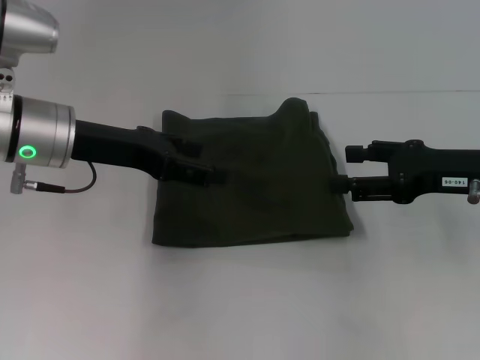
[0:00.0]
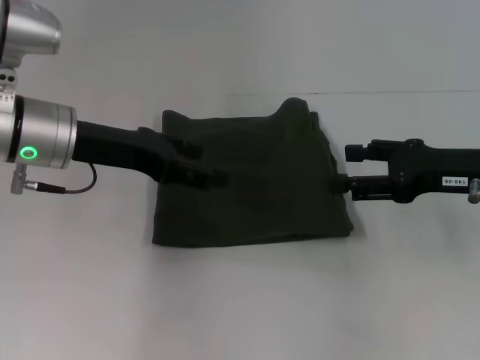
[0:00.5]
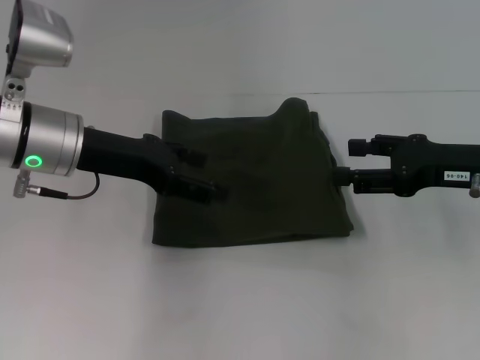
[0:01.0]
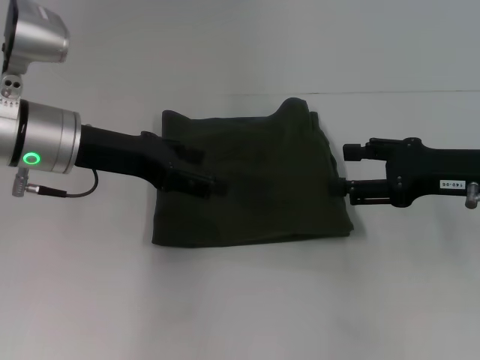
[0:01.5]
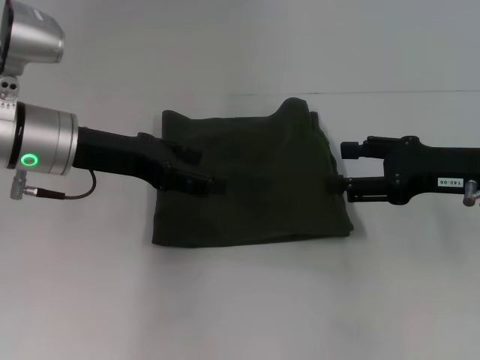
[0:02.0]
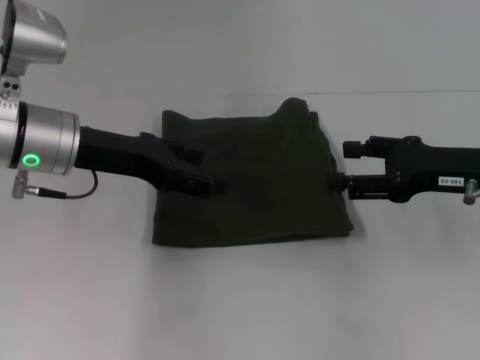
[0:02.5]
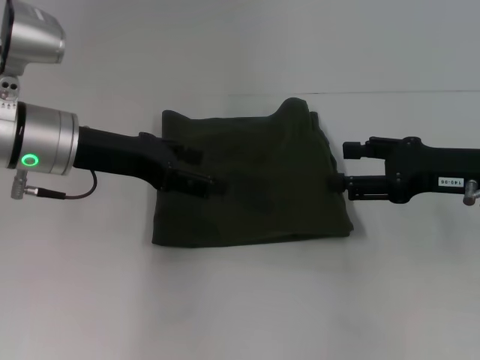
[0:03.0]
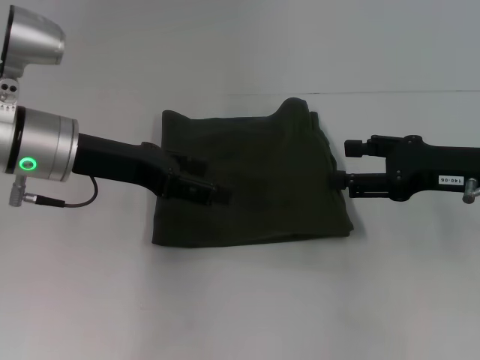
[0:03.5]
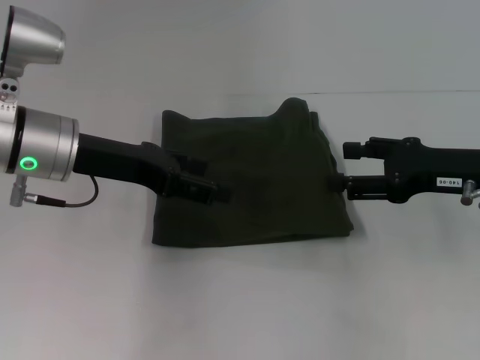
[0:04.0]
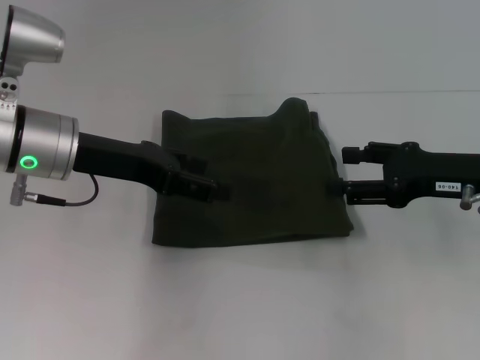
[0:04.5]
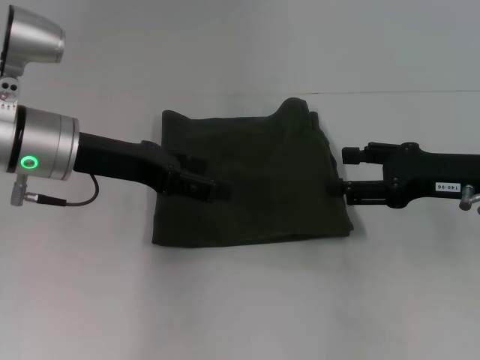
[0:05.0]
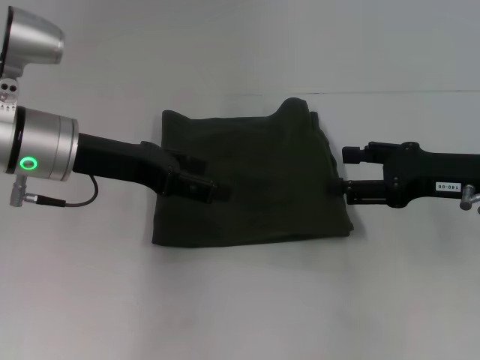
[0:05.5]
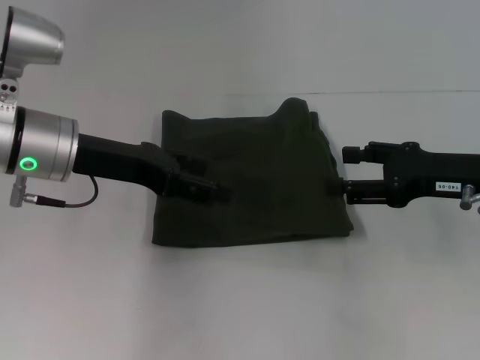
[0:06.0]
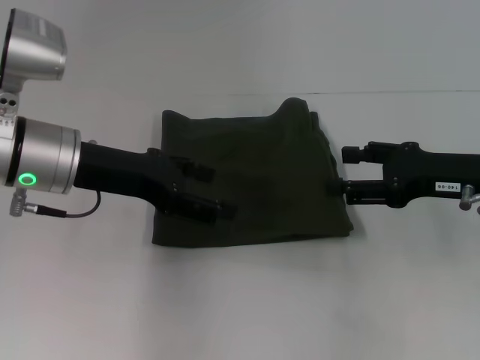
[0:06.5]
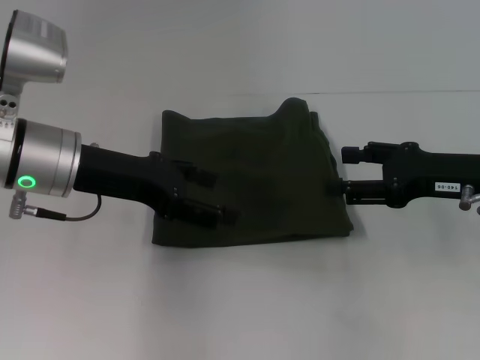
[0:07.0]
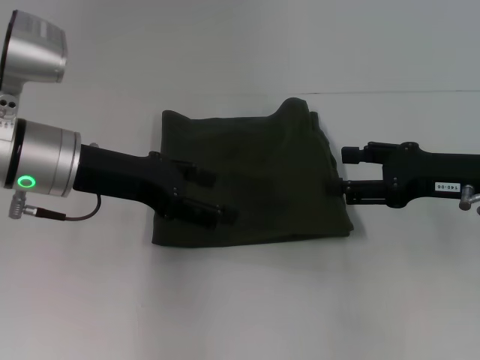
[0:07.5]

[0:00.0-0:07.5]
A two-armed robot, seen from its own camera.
0:00.0 to 0:02.0: The grippers move only a little.
0:02.0 to 0:05.5: The two grippers keep their place.
0:05.5 to 0:07.5: The grippers make only small movements.

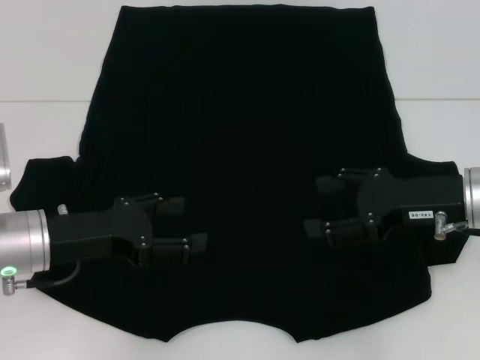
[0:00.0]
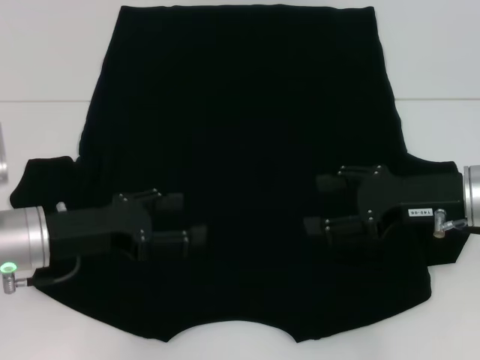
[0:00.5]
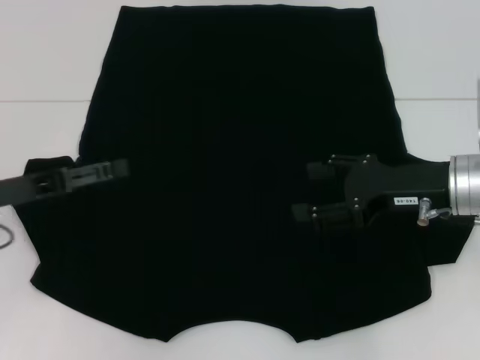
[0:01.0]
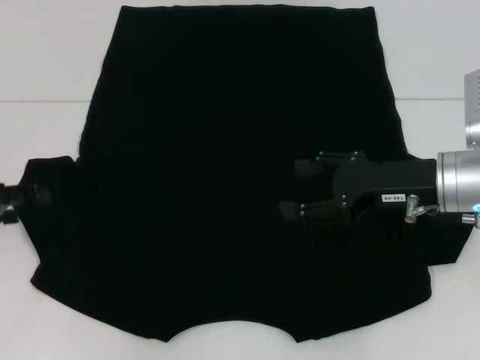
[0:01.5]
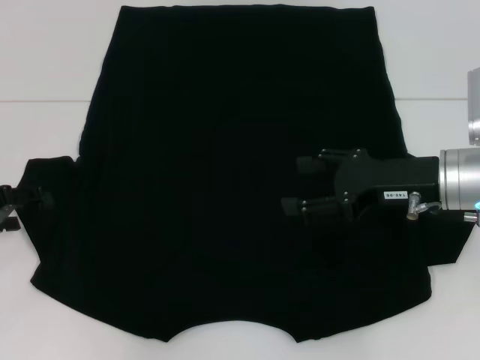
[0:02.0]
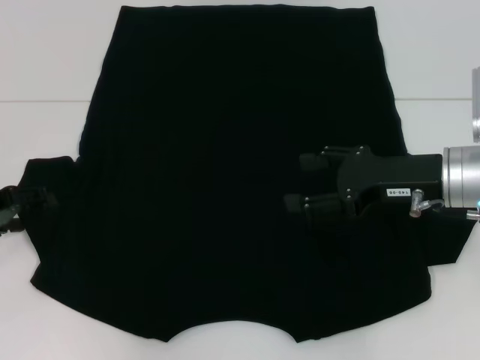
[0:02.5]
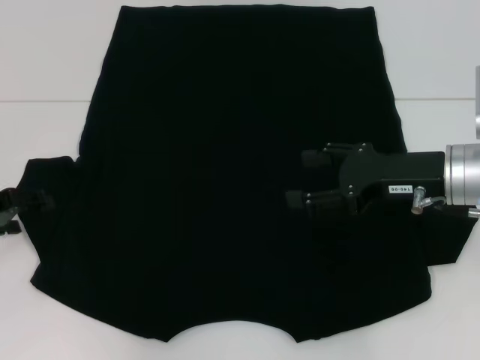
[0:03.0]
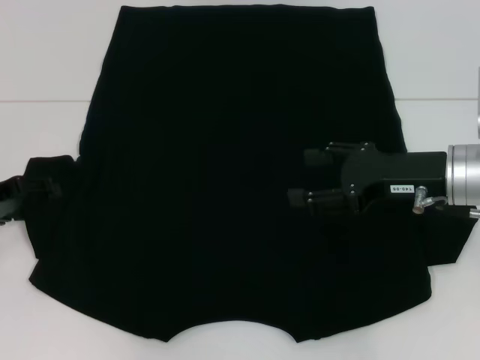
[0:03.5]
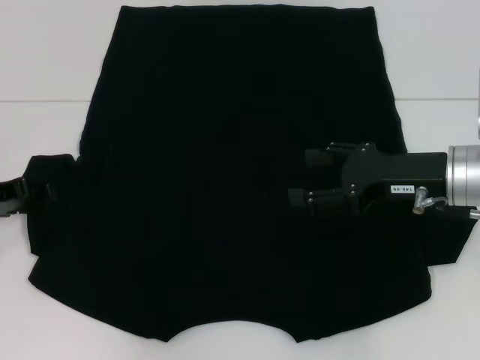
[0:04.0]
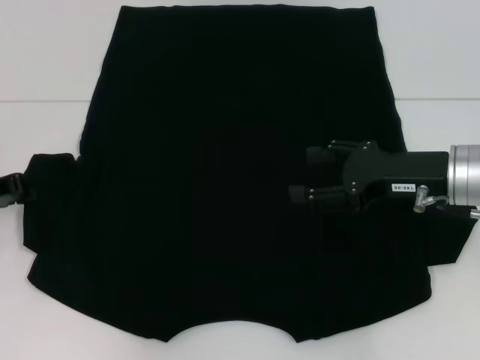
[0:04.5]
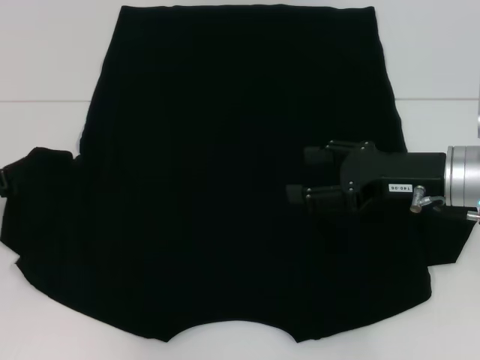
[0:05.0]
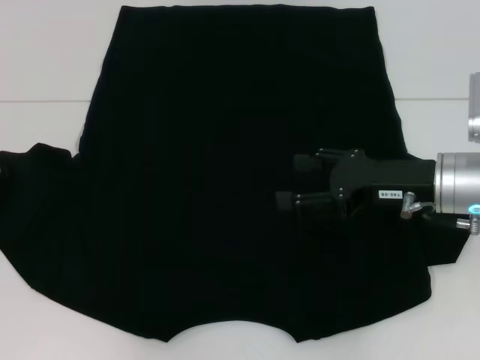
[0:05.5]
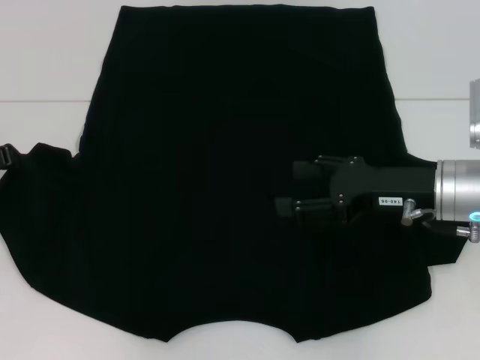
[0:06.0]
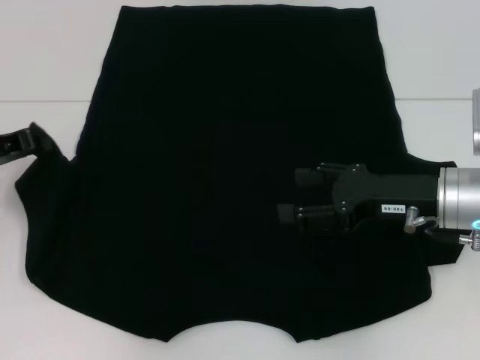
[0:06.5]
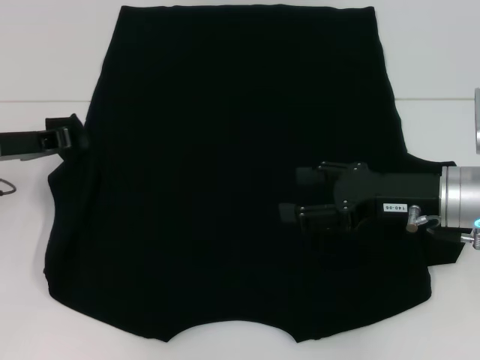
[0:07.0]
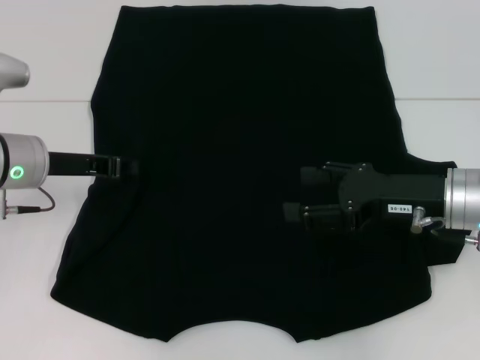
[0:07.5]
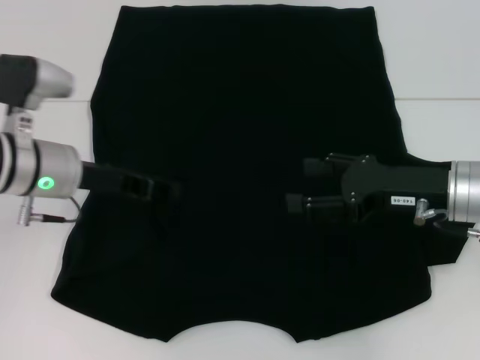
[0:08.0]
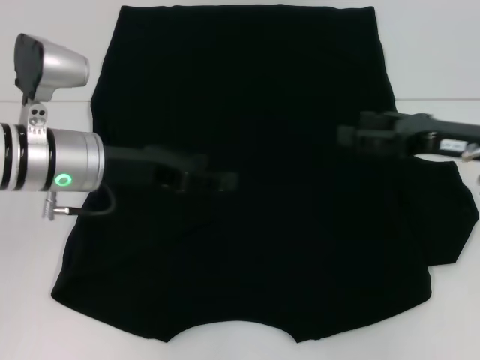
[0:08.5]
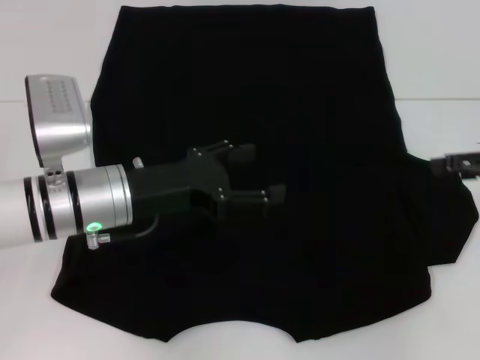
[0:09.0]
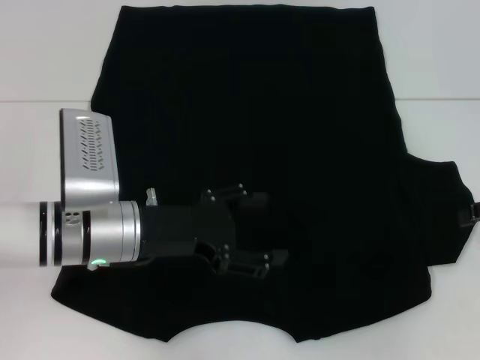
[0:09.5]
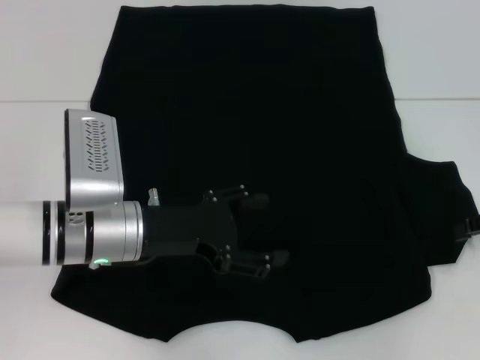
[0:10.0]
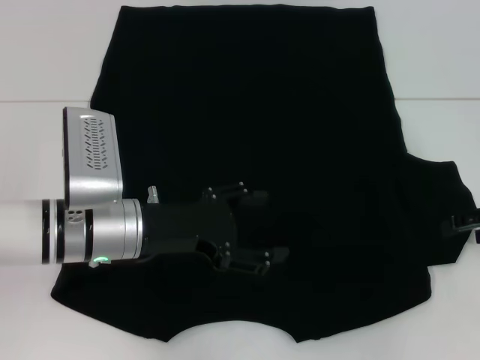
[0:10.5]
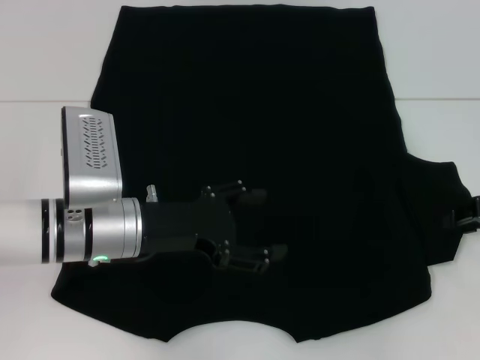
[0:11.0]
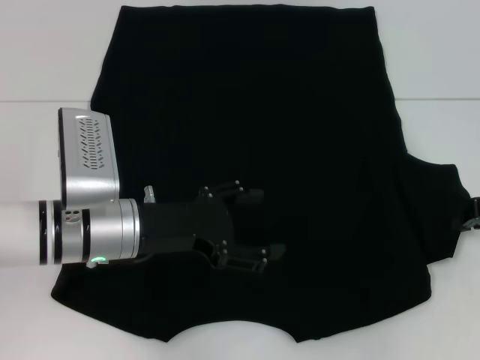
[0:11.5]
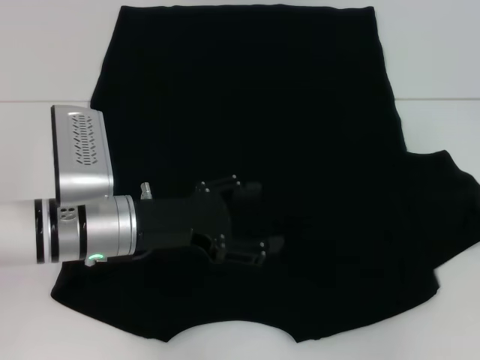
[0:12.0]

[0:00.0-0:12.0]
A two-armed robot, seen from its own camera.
Step, 0:00.0 to 0:08.0: Fold the bottom left sleeve with your left hand.
0:00.0 to 0:02.0: The left gripper moves to the left, roughly 10 cm.
0:02.0 to 0:04.0: The grippers move only a little.
0:04.0 to 0:06.0: The left gripper closes.
0:06.0 to 0:08.0: The left gripper travels to the right by about 15 cm.
0:08.0 to 0:10.0: The left gripper moves to the right and backward, approximately 10 cm, and opens. Meanwhile the right gripper goes approximately 15 cm to the right.
0:10.0 to 0:12.0: The right gripper closes.

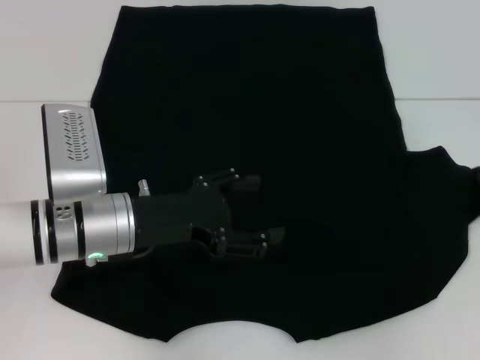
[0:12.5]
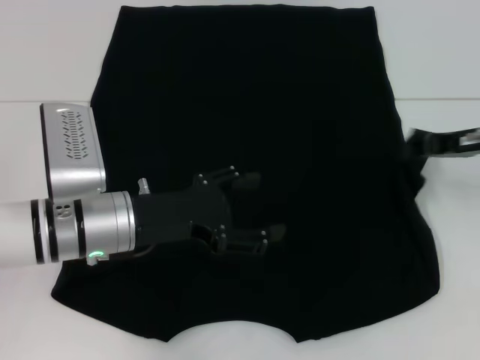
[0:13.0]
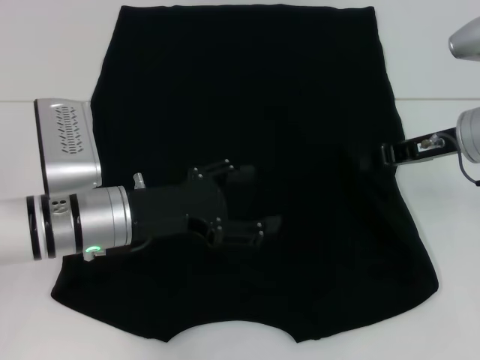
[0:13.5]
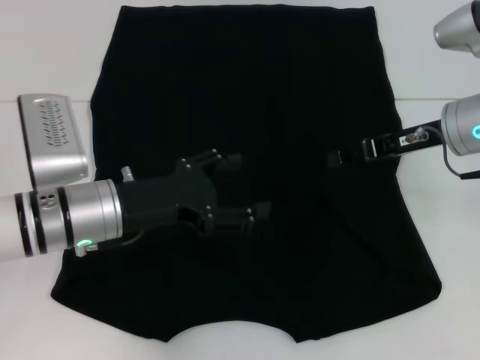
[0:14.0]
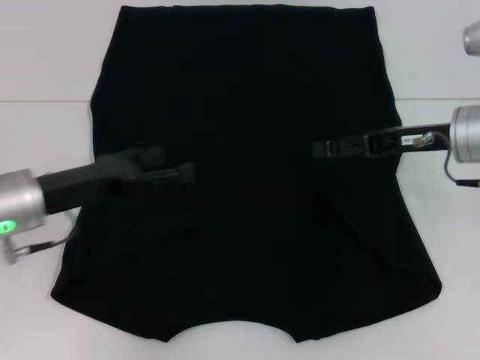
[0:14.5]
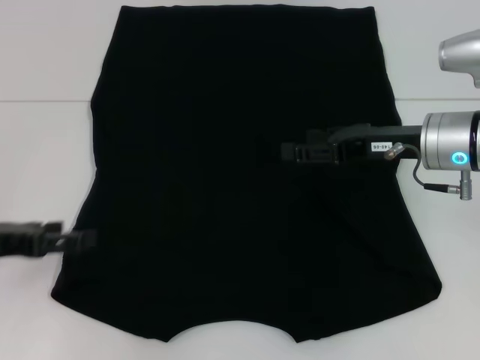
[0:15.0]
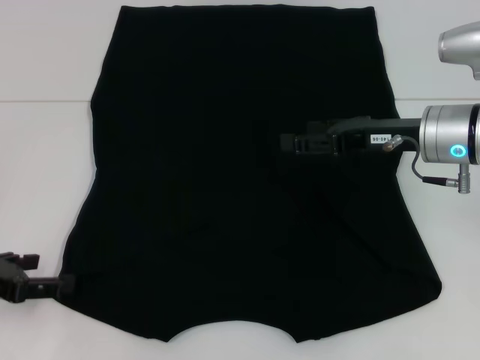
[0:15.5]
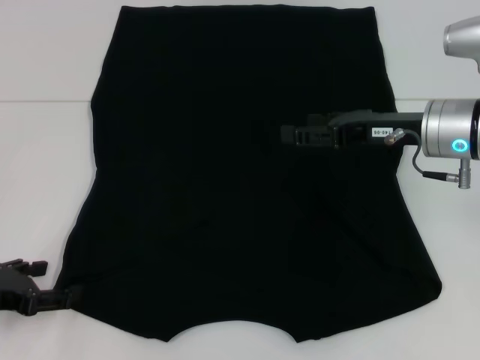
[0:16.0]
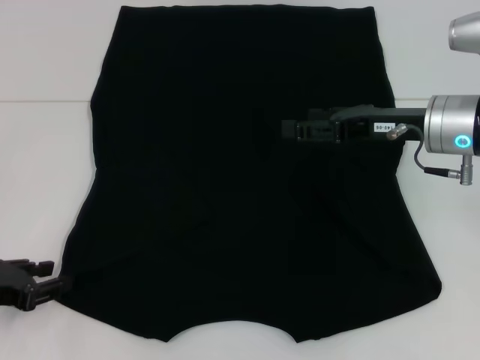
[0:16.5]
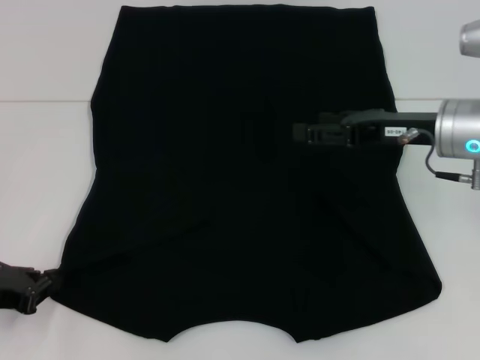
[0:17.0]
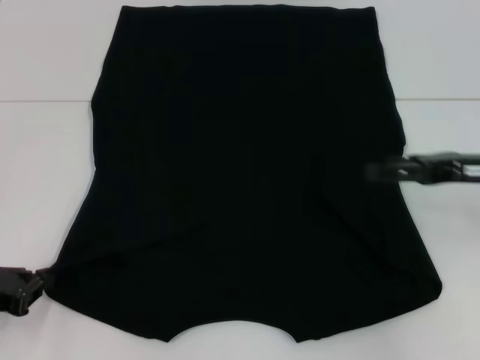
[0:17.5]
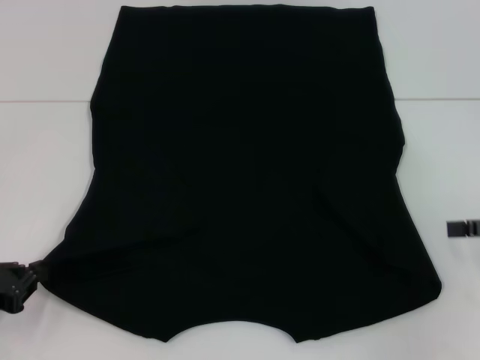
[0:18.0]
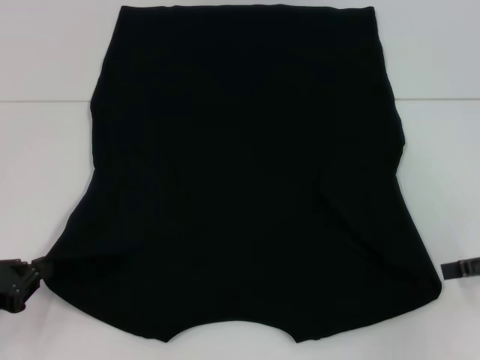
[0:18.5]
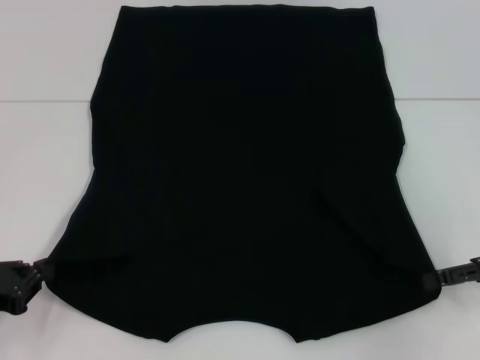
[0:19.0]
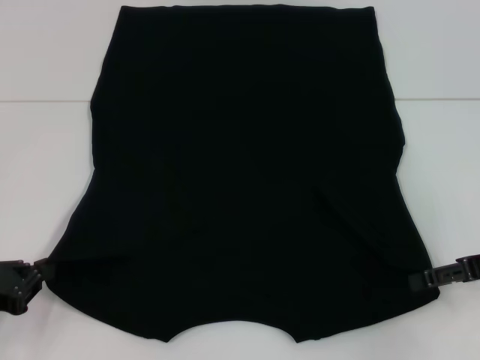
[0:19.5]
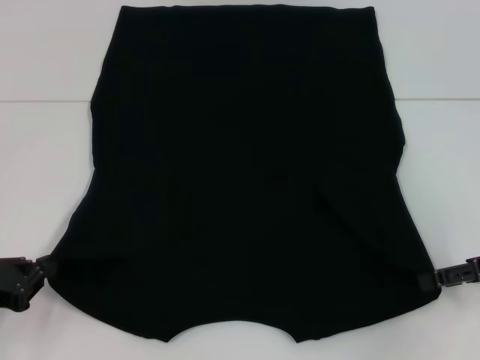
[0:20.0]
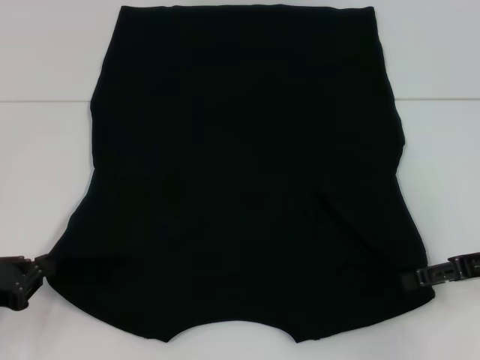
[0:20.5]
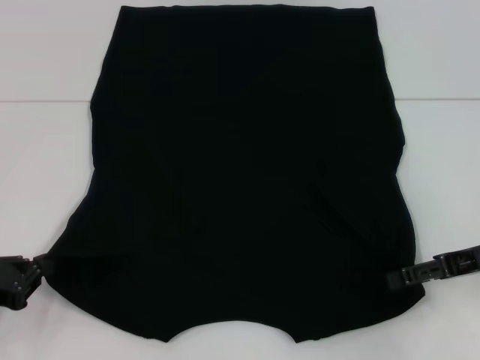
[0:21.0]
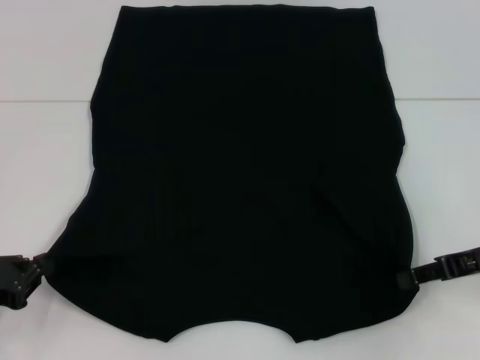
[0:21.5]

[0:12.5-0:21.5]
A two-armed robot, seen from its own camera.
Step, 0:14.5 to 0:17.0: Grab the bottom left corner with your left hand.
0:12.5 to 0:14.5: The right gripper shifts approximately 15 cm to the left, and opens up. The left gripper moves to the left, about 10 cm.
0:14.5 to 0:17.0: The left gripper heads to the left and backward, covering approximately 10 cm, and closes up.
0:17.0 to 0:19.5: The right gripper is displaced to the right and backward by some 15 cm.
0:19.5 to 0:21.5: The right gripper closes up.
